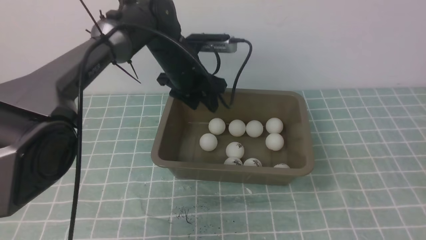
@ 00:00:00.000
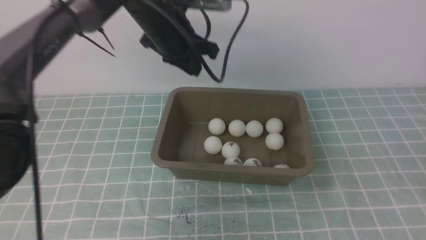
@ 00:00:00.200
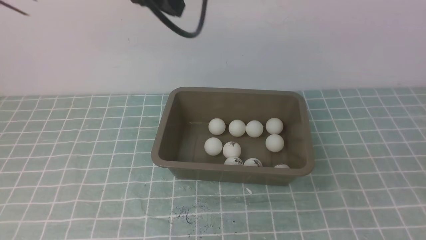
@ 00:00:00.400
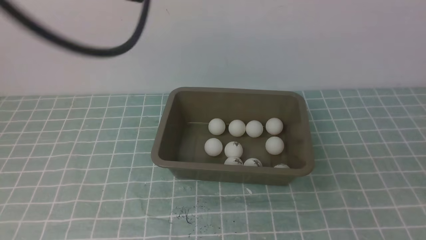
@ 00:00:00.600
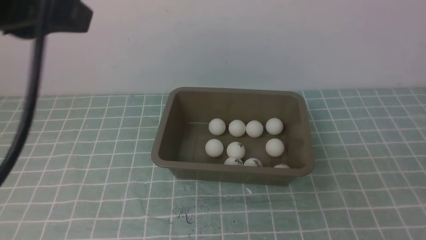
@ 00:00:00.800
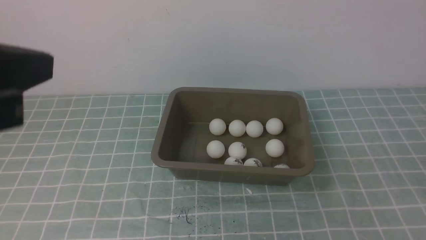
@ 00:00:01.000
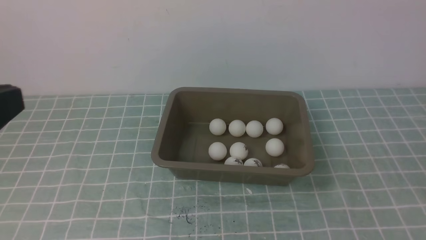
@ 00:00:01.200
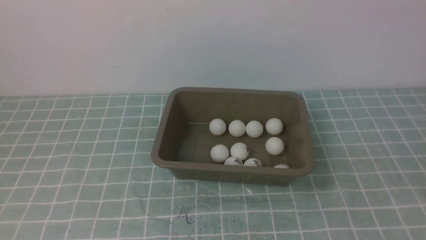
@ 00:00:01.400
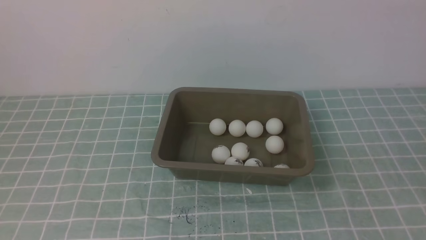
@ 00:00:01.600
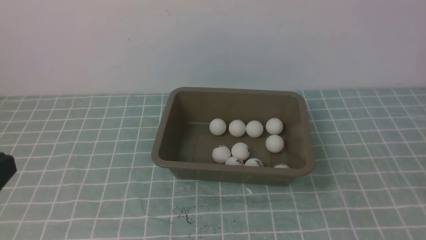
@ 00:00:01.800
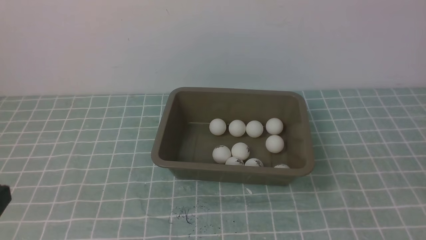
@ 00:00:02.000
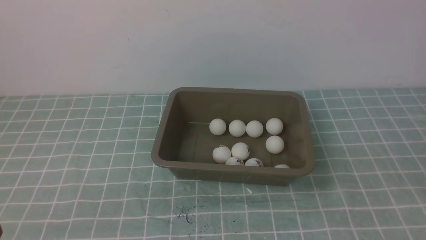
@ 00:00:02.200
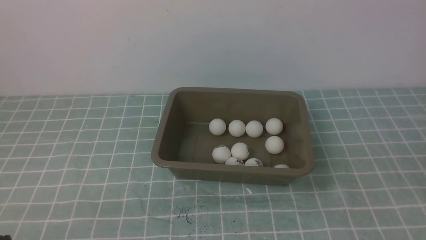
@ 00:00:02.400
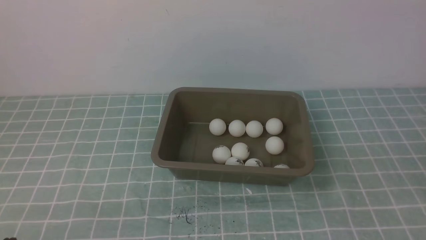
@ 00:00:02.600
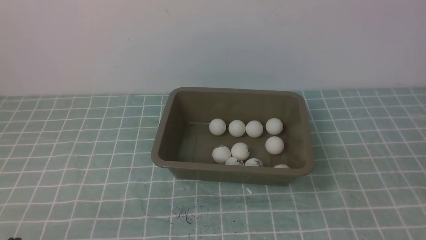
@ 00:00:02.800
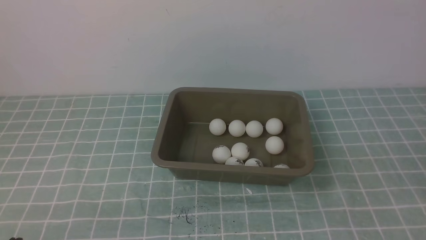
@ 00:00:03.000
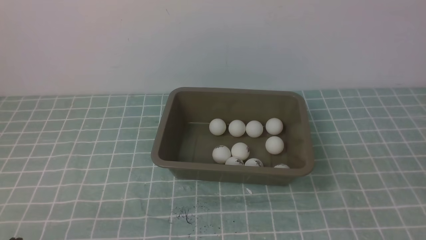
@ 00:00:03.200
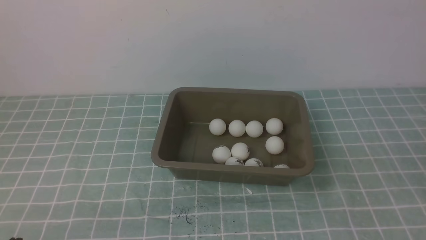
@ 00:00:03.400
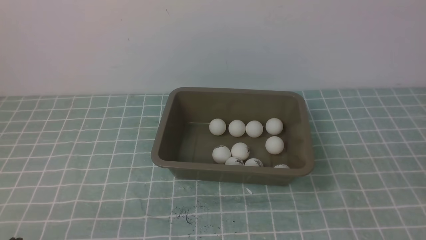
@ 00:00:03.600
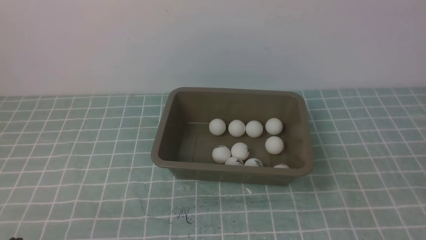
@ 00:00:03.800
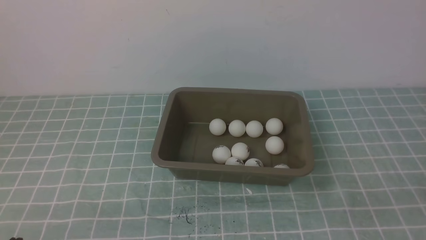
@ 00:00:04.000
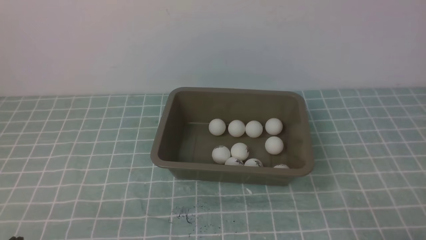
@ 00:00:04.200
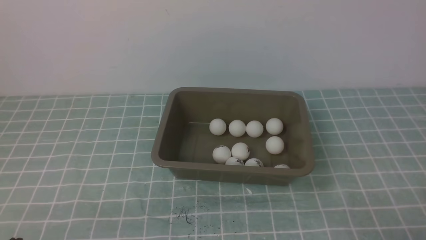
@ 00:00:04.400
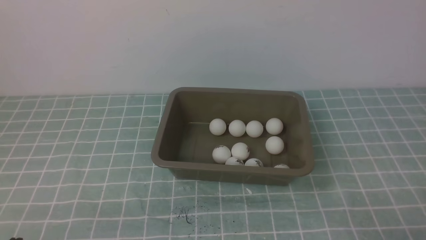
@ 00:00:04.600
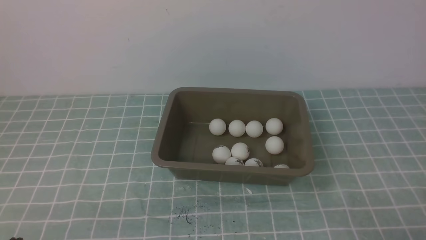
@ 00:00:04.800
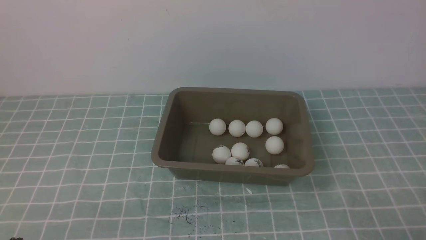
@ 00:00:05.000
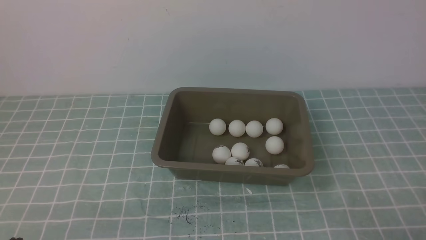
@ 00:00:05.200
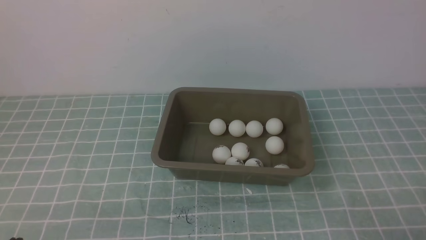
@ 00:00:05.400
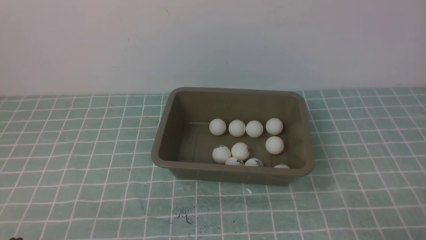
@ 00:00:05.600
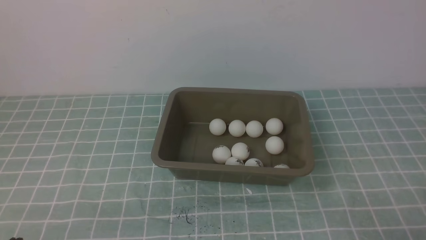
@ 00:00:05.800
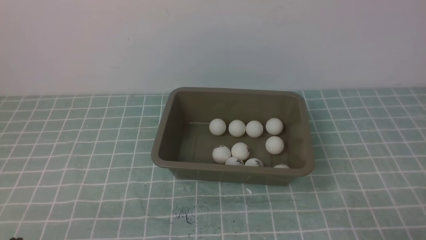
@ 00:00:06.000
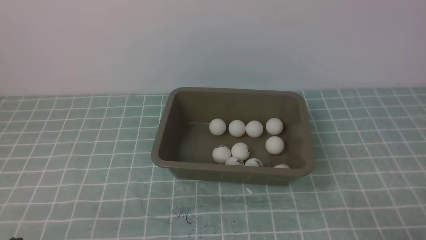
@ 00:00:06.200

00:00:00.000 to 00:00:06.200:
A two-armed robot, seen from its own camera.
00:00:00.000 to 00:00:01.600: The left gripper travels backward and to the left by roughly 40 cm, and closes its fingers.
00:00:04.600 to 00:00:06.200: Both grippers stay put.
